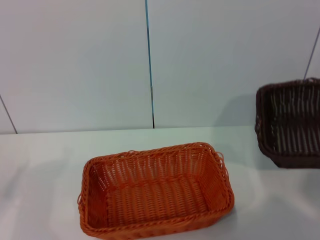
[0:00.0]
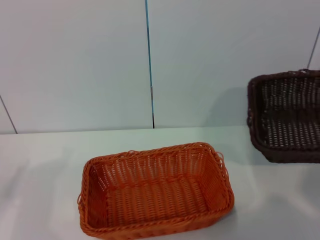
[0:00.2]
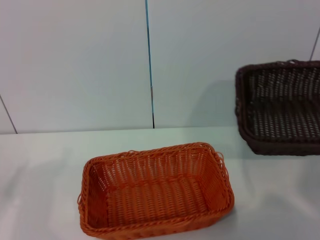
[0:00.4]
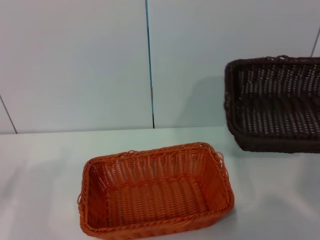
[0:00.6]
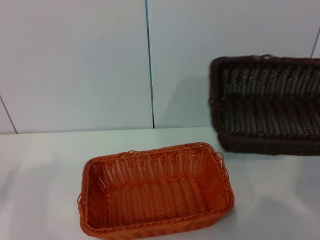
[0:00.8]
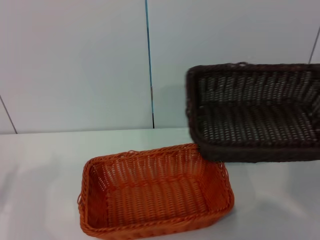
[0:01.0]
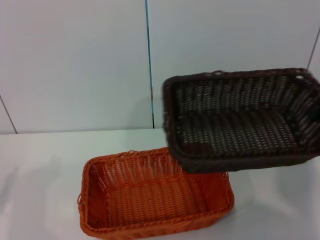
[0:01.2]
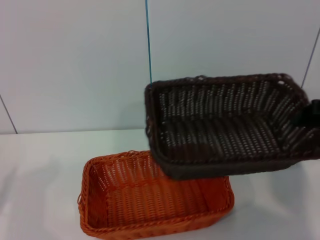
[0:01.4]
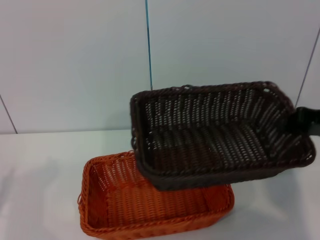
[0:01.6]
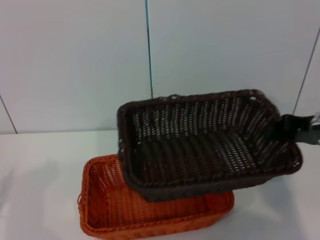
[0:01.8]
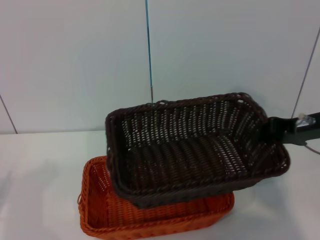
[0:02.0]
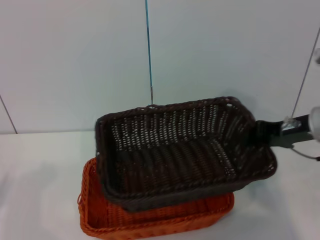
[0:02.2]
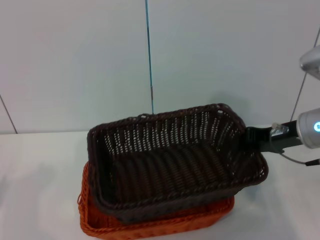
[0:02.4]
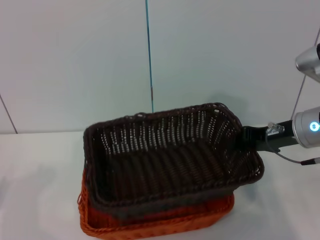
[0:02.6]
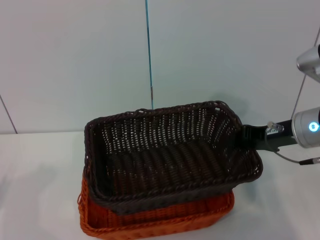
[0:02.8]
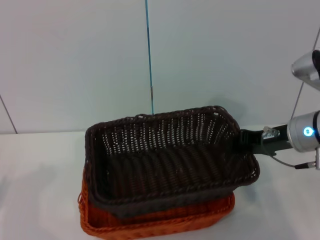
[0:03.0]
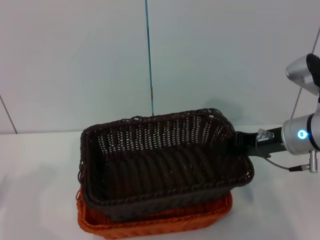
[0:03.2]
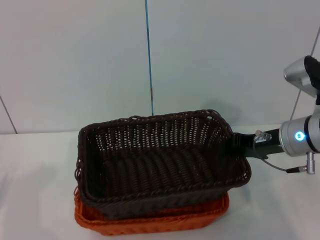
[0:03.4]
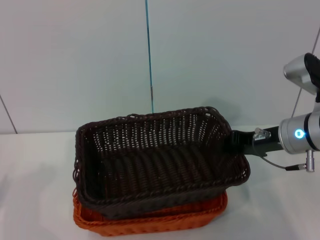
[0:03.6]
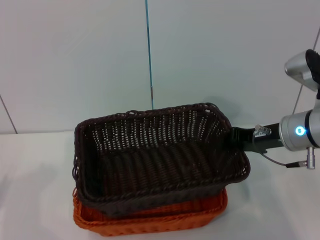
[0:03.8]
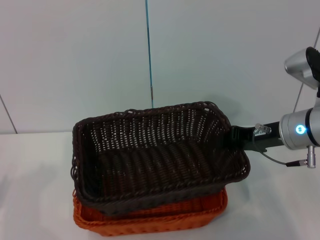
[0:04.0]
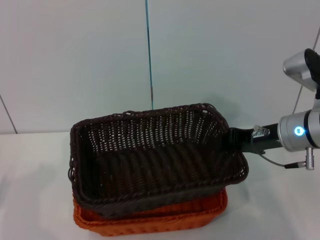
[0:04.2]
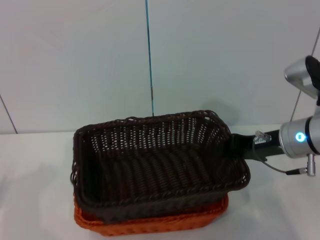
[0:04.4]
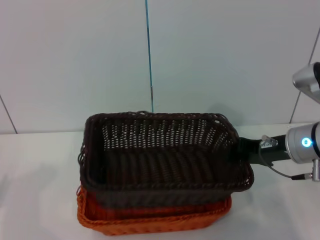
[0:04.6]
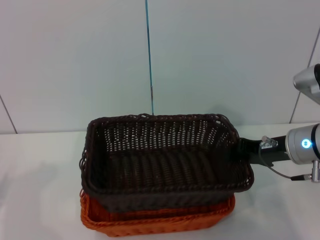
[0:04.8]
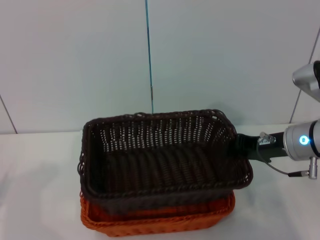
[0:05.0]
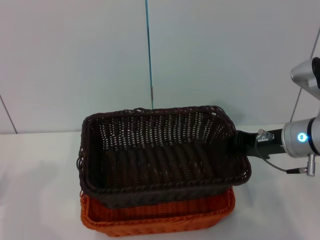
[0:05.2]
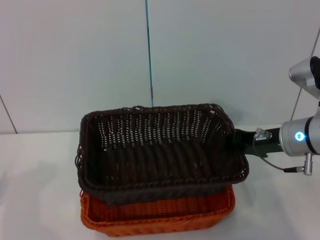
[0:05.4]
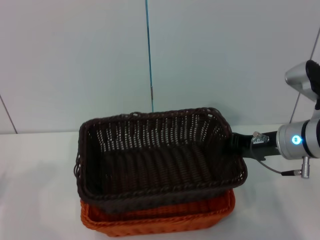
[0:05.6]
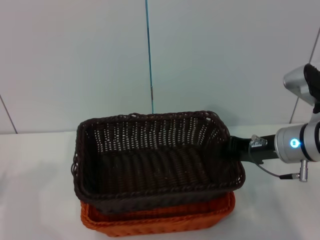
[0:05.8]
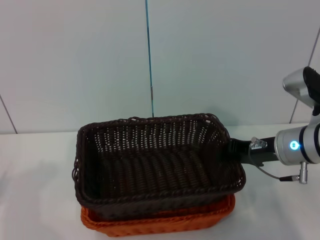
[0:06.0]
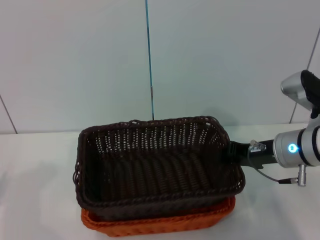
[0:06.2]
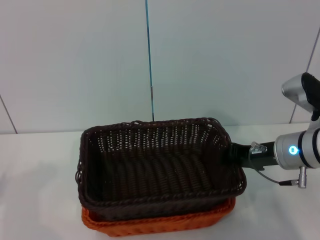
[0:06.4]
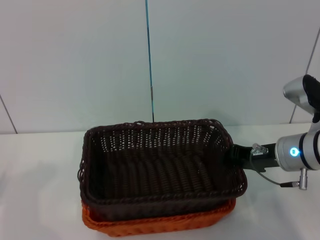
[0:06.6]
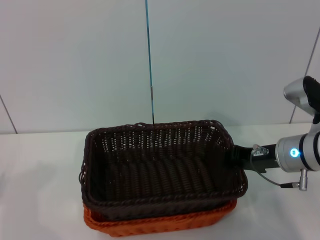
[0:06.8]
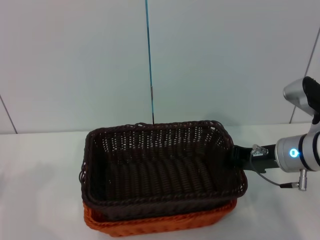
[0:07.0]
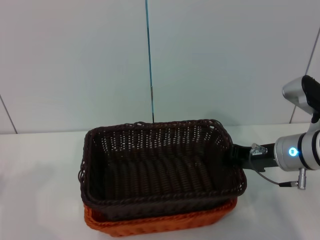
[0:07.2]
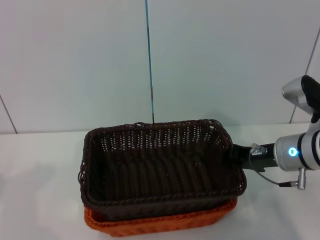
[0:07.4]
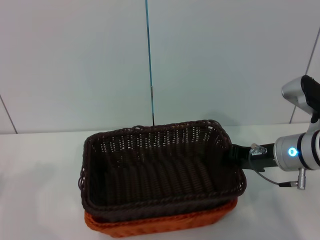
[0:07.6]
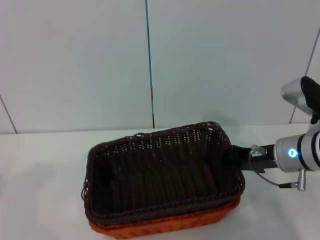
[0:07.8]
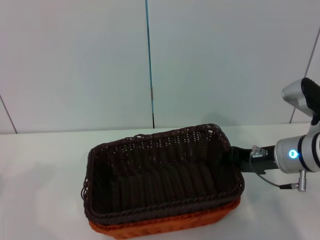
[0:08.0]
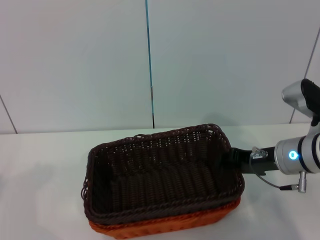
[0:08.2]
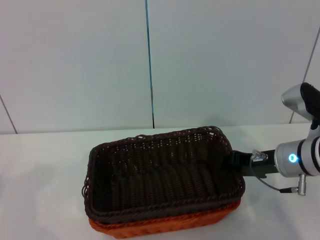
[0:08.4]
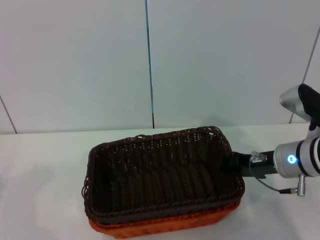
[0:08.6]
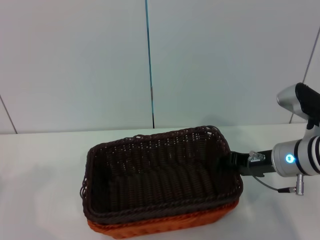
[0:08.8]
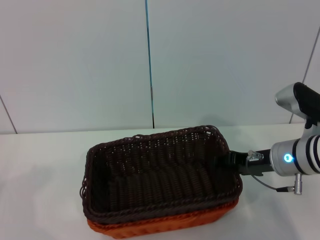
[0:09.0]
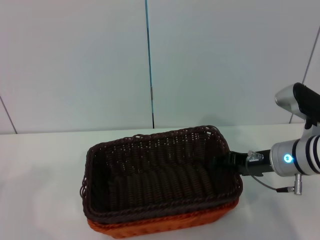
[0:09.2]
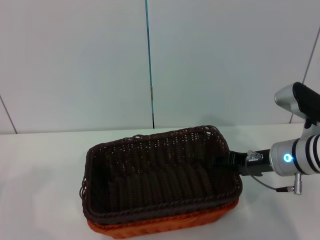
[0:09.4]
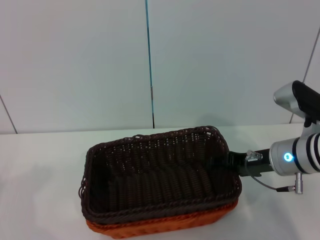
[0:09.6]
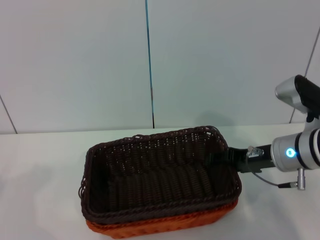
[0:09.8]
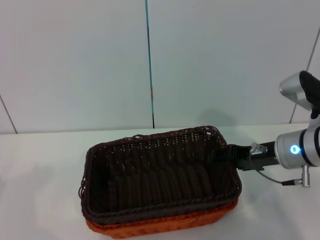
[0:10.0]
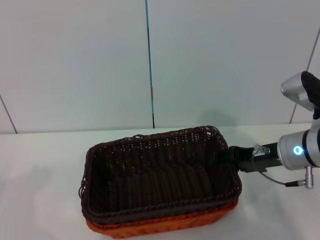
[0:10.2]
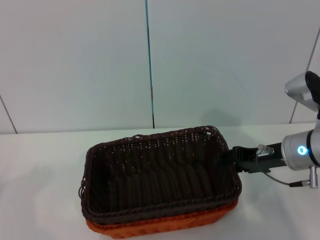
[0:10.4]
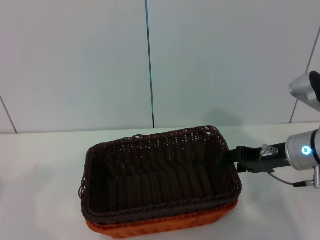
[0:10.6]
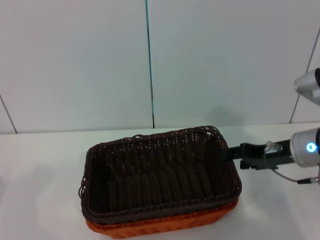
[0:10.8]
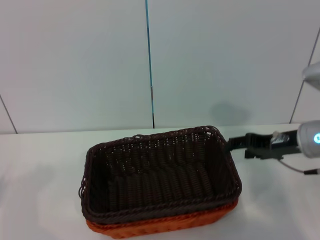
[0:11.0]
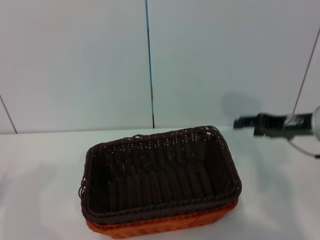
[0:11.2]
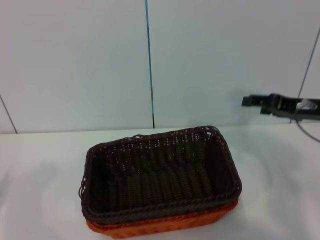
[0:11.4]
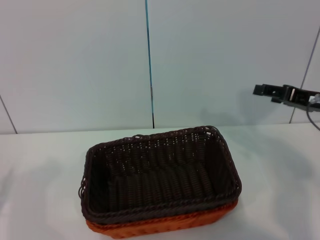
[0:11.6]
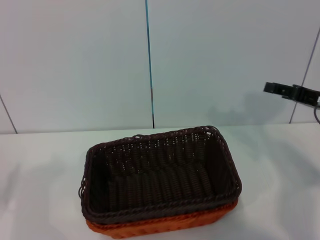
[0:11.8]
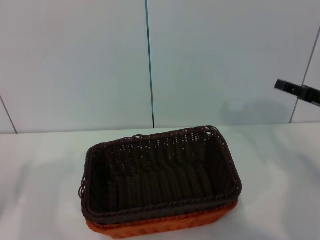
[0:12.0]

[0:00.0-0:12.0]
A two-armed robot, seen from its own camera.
Step, 0:00.0 to 0:11.0: Place the dark basket on the light basket with the right gripper.
0:00.0 to 0:01.6: The right gripper shifts some 15 cm to the left.
0:01.6 to 0:03.0: The right gripper moves to the left, roughly 10 cm.
0:03.0 to 0:07.6: There are only small adjustments of the grippers.
0:07.6 to 0:09.0: The right gripper opens.
0:09.0 to 0:10.4: The right gripper opens its fingers.
0:10.4 to 0:12.0: The right gripper goes some 10 cm to the right.

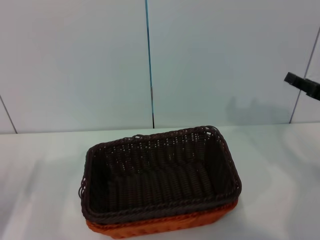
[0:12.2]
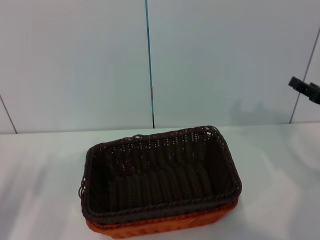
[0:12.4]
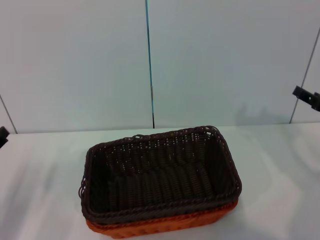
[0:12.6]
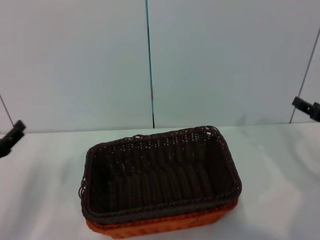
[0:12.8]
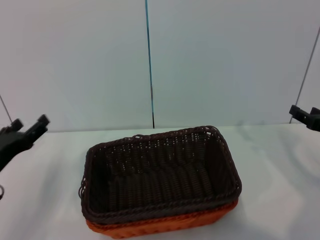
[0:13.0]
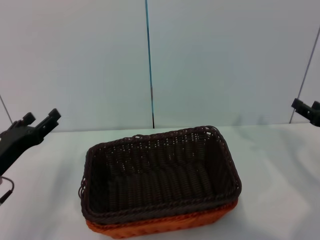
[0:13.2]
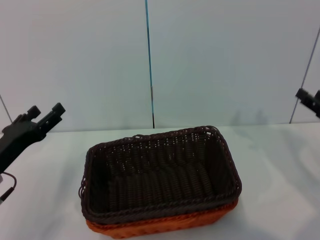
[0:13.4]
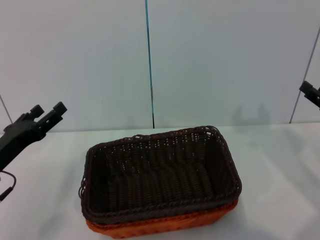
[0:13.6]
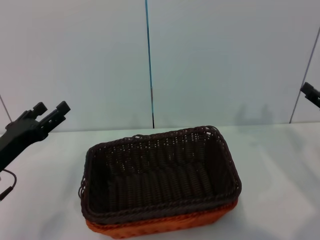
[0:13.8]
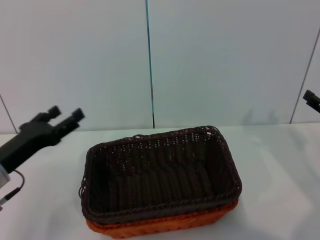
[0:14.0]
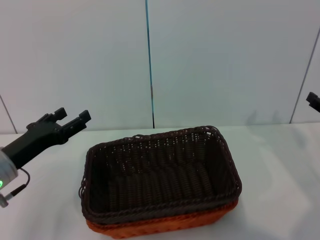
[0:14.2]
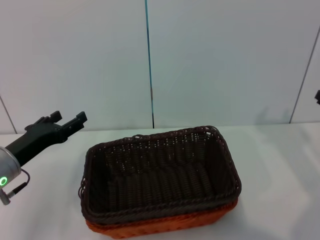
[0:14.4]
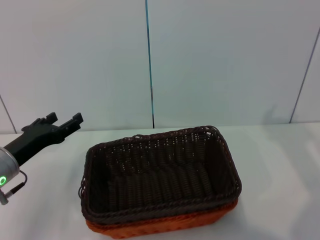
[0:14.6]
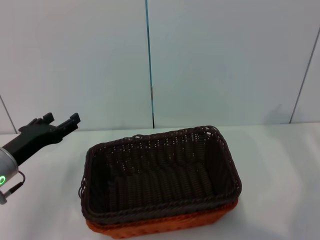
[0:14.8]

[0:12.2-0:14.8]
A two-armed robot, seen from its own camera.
0:12.2 to 0:13.4: The left gripper goes roughly 10 cm to the right.
